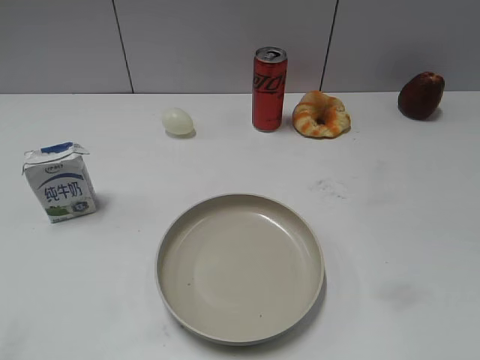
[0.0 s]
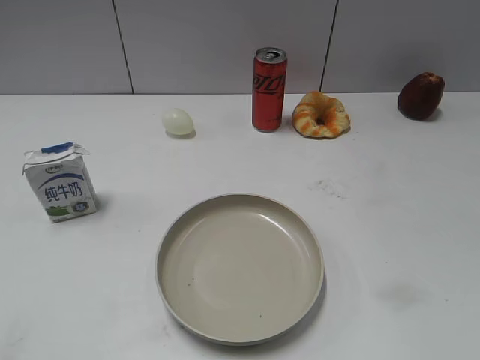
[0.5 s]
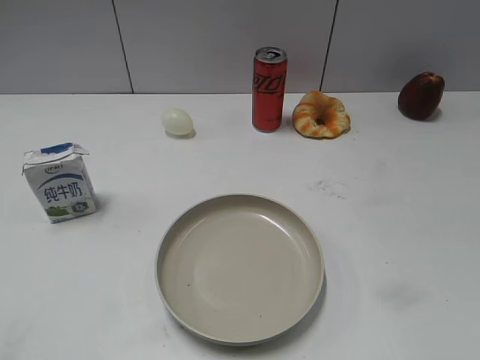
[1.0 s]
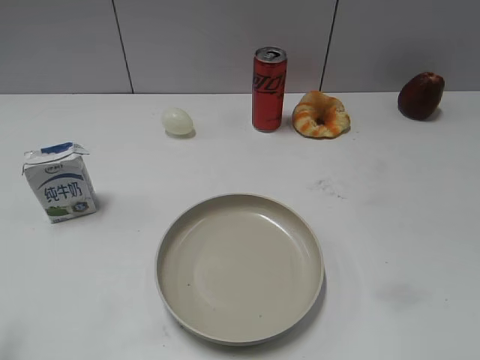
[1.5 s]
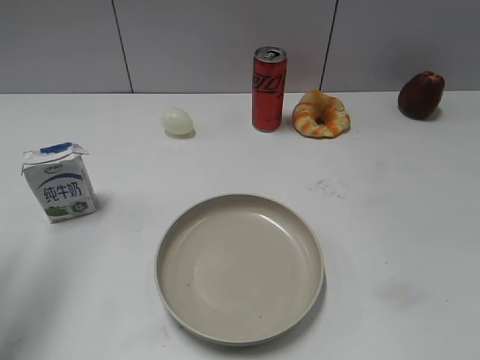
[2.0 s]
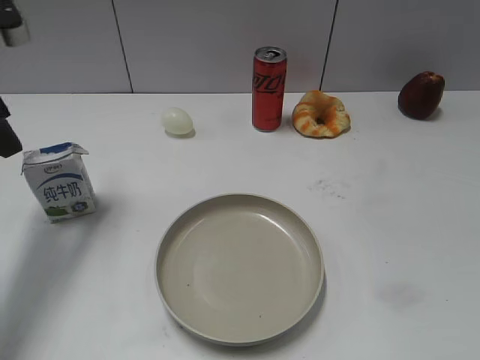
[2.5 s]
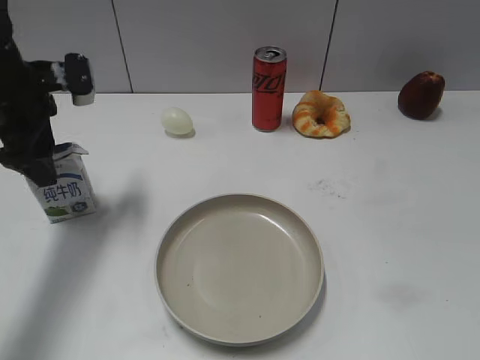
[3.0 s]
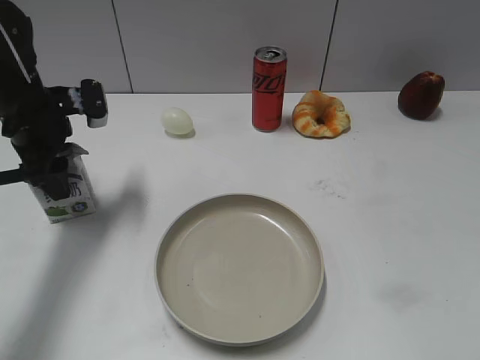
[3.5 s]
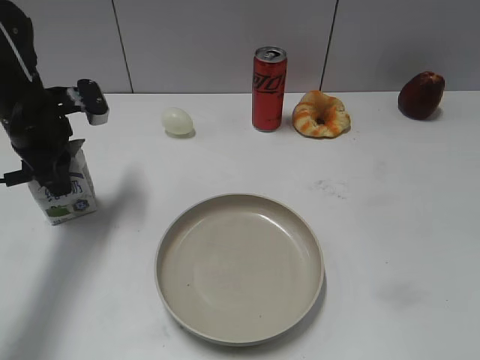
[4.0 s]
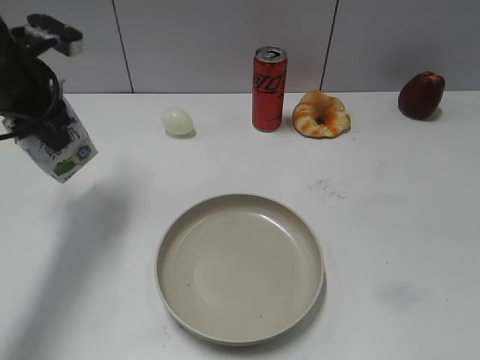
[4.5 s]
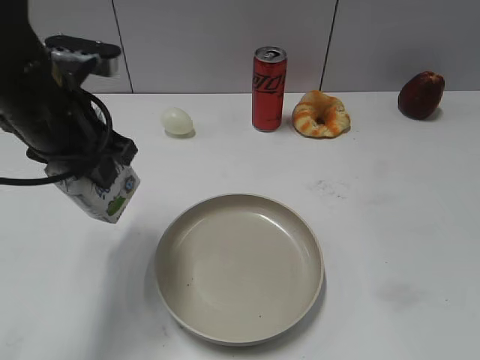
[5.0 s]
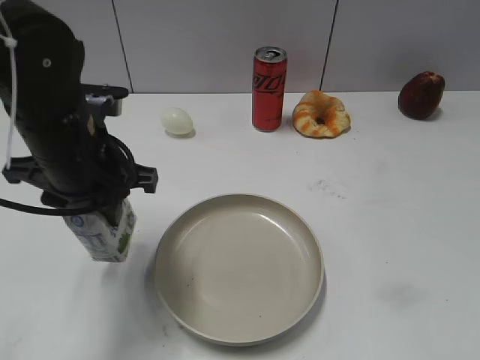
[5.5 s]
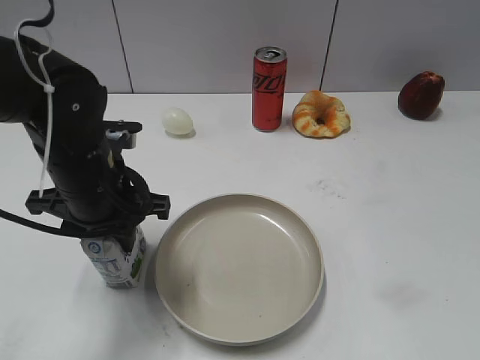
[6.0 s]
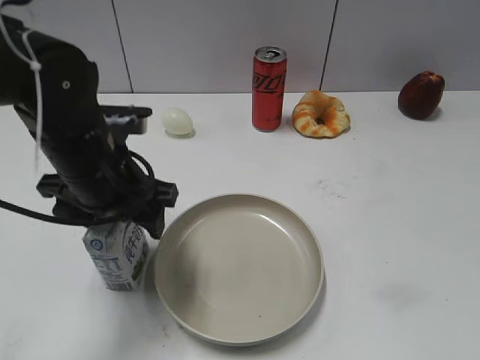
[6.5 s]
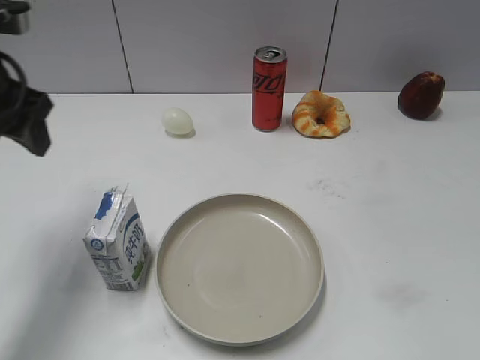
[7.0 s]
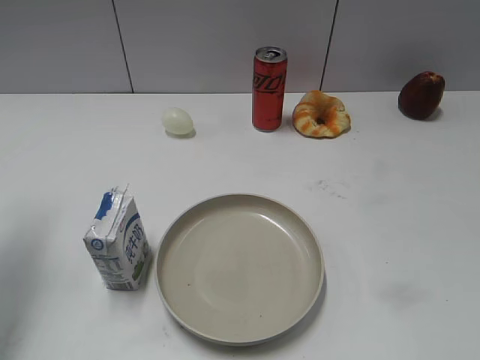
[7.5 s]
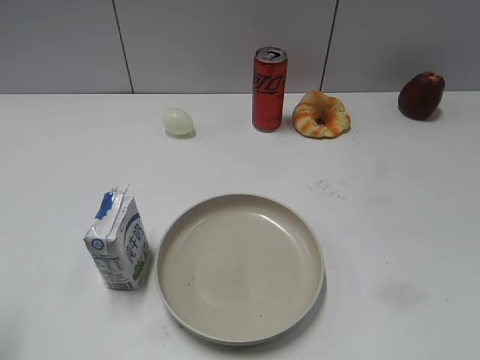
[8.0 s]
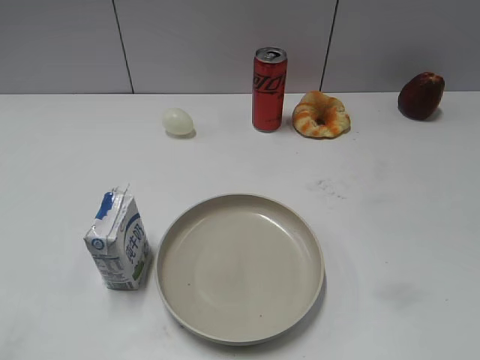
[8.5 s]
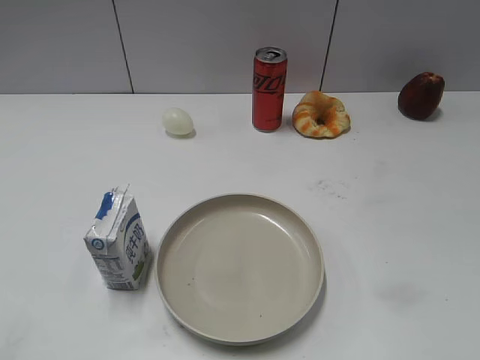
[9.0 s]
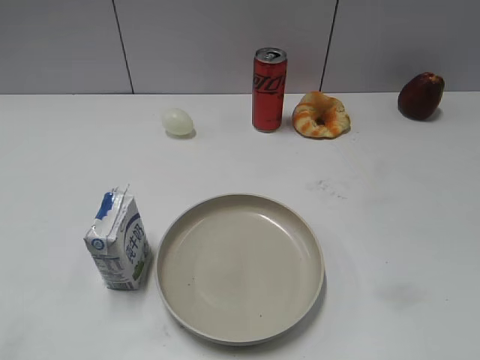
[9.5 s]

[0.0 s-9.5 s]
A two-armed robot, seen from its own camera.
Step, 1.0 to 3.5 s: Grasp the milk with left gripper.
Step, 4.0 to 6.5 s: Place the milk on the table with left gripper.
2.0 to 4.0 s: The left gripper goes roughly 20 cm downward, forward and to the right, and closes.
4.0 to 5.5 s: The left gripper goes roughly 15 cm backward and to the right.
5.5 to 7.5 s: The left gripper goes some 20 cm to the left and upward, and opens up.
7.5 to 9.5 s: The left gripper travels backward by some 30 cm.
